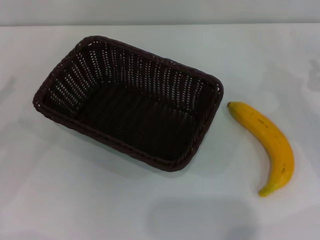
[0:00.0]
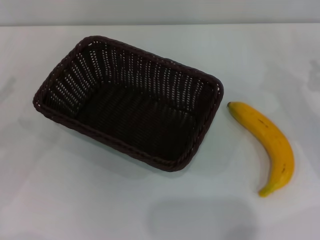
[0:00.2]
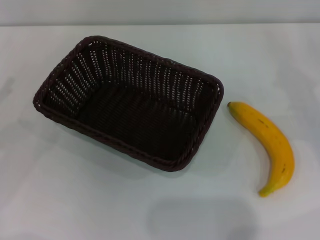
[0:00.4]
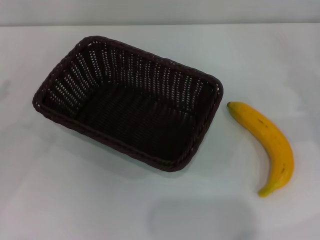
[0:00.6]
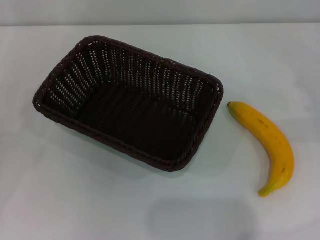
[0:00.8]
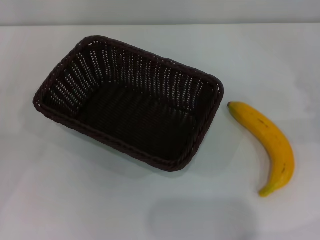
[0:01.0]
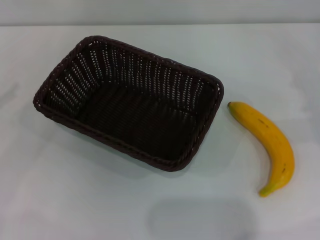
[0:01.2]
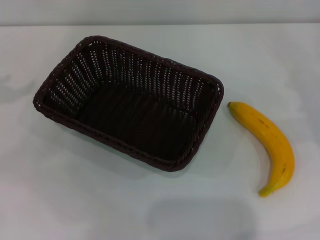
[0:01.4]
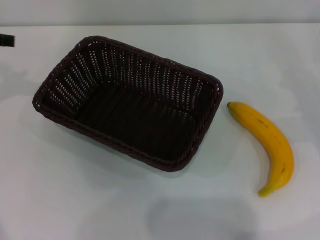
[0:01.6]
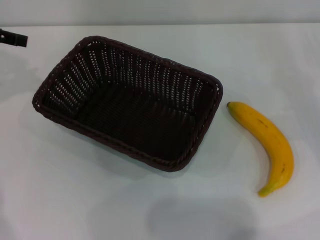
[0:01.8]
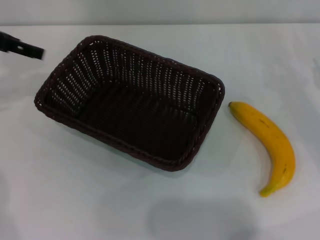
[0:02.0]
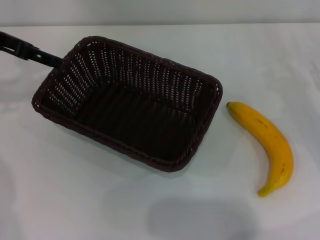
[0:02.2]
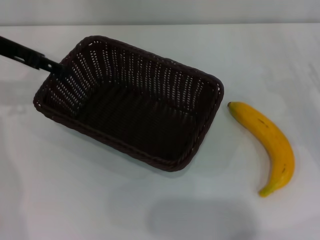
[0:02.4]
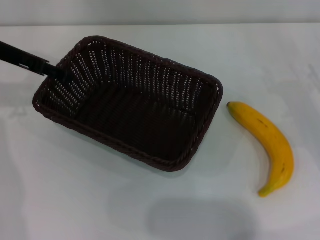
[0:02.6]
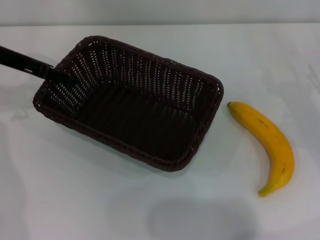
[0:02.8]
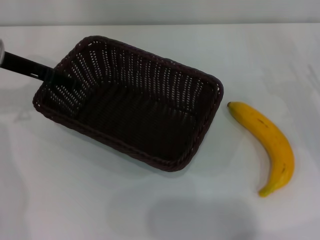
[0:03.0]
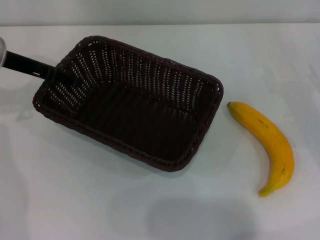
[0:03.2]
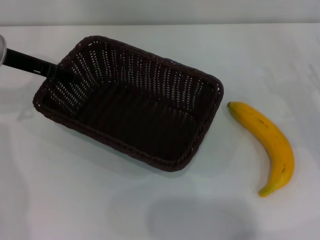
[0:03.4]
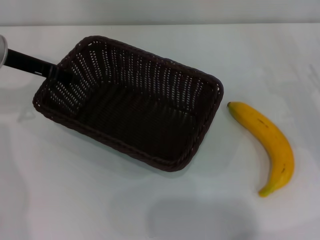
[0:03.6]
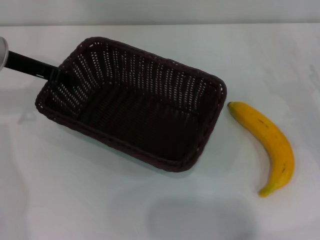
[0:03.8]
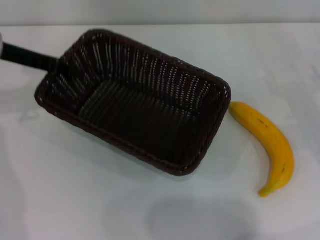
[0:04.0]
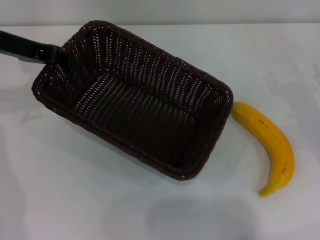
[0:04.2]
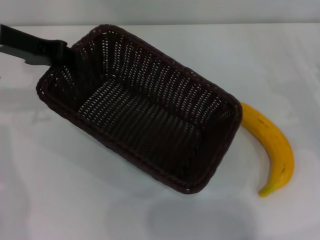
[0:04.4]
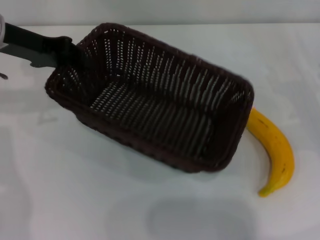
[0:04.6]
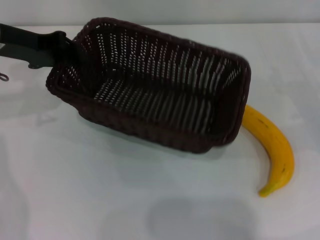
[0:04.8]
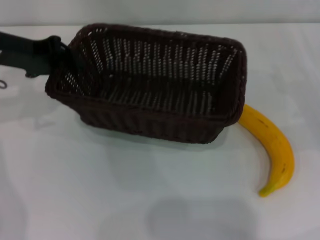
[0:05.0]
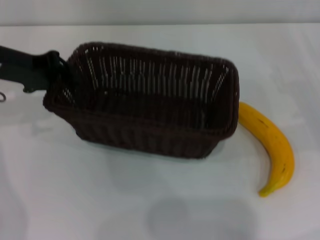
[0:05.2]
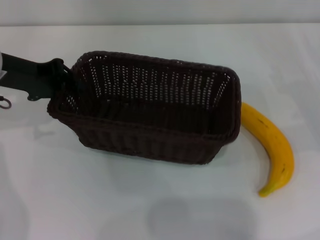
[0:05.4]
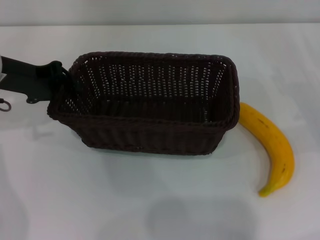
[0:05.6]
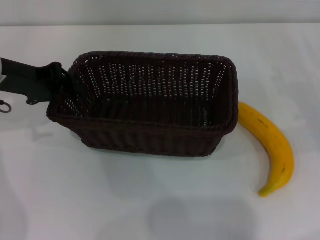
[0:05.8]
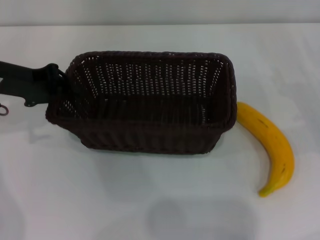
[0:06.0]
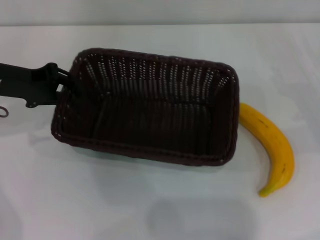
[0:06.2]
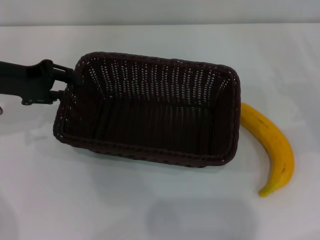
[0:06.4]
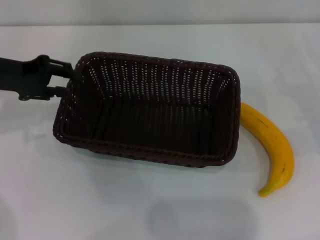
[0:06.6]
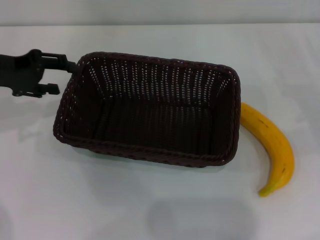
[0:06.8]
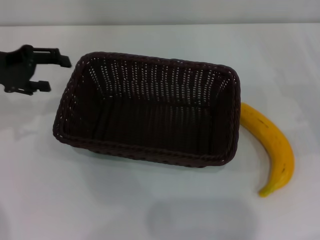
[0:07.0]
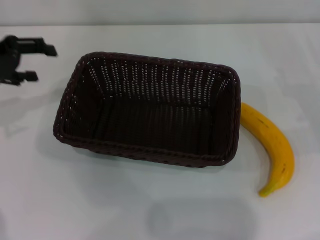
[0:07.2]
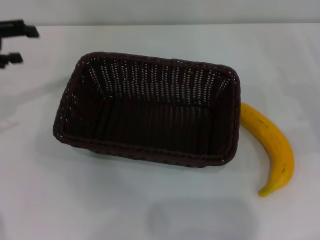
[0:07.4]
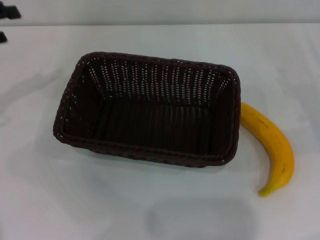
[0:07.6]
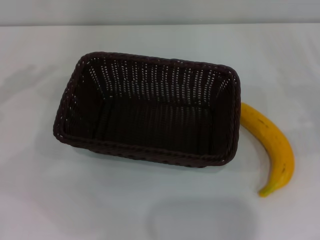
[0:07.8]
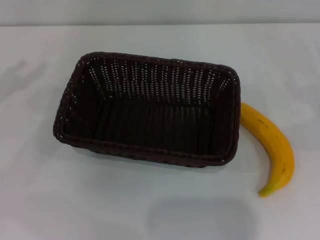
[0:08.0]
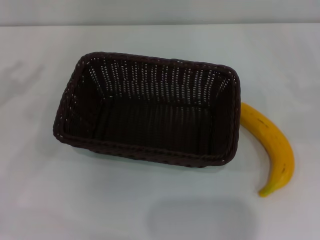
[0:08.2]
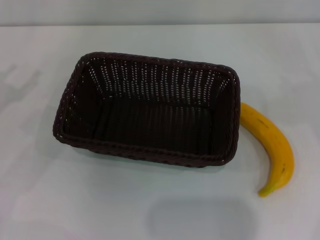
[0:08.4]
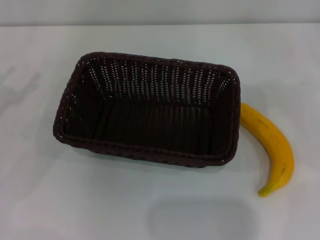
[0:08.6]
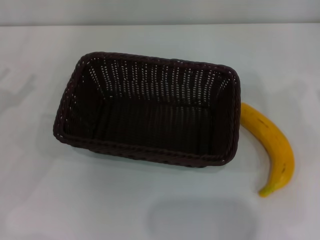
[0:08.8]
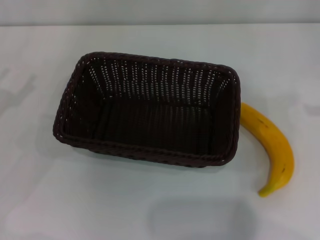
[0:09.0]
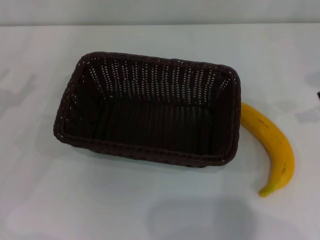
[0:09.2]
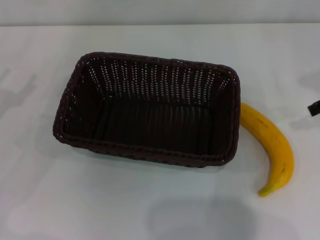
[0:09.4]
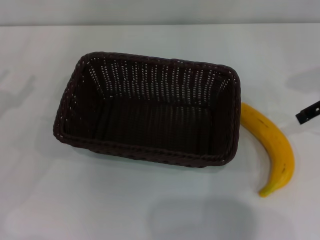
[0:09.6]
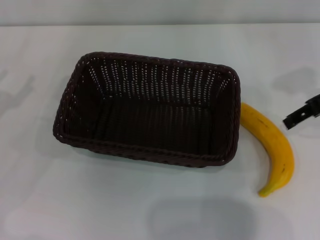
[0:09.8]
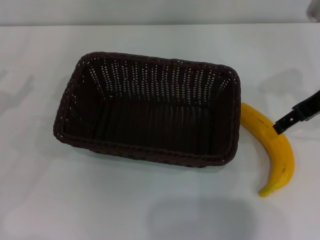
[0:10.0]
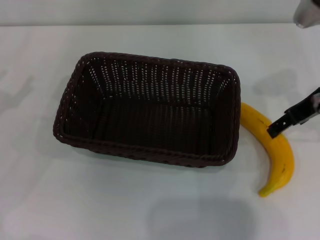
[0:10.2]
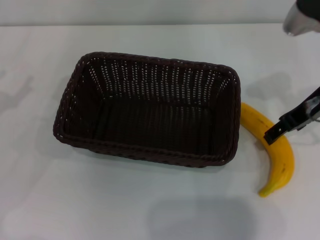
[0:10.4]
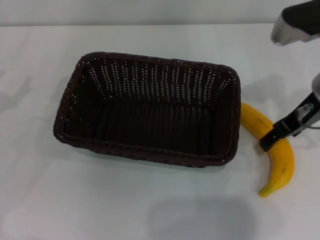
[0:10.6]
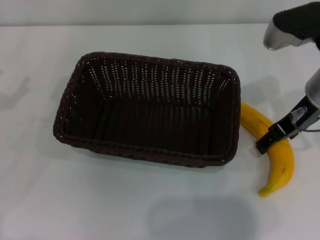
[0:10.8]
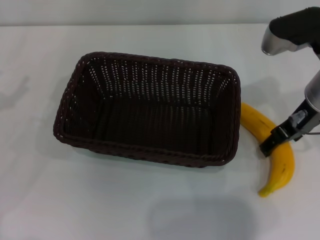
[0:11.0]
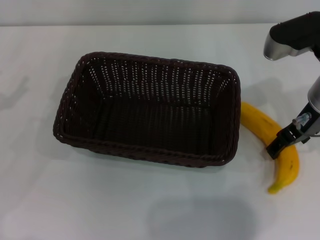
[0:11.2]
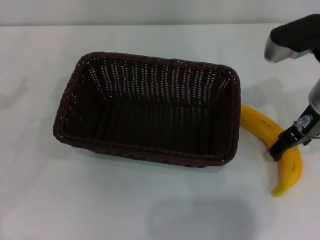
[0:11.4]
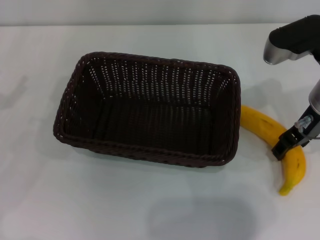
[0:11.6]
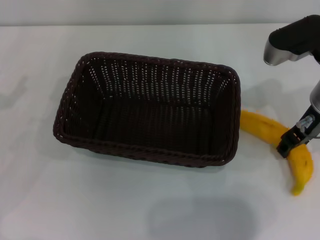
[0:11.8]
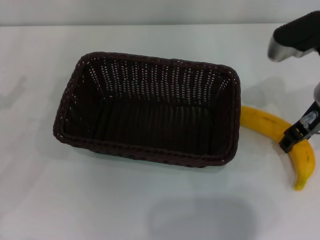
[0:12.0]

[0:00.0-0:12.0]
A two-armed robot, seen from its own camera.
Step, 0:00.0 to 0:04.4: Pick up the dark basket with the left gripper.
Step, 0:04.6 to 0:07.2: Place the dark basket in the center of view with the left gripper.
0:01.6 to 0:03.0: The left gripper moves to the right and downward, about 10 cm.
0:03.0 to 0:04.4: The left gripper changes place by about 5 cm, and closes up.
0:04.4 to 0:06.0: The left gripper moves some 5 cm.
0:06.0 to 0:07.6: The left gripper heads to the left, covering roughly 10 cm, and opens its fingers.
0:09.0 to 0:10.4: The right gripper shifts about 15 cm to the left.
0:10.4 to 0:12.0: The grippers move only a little.

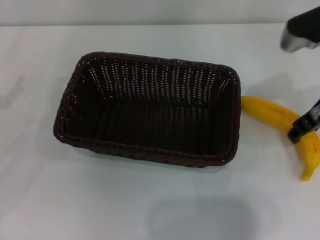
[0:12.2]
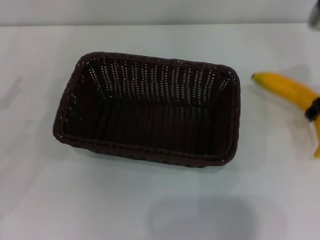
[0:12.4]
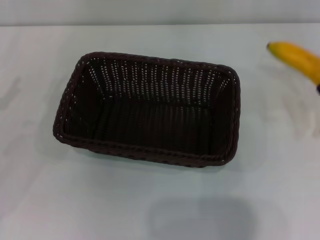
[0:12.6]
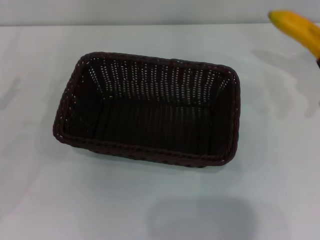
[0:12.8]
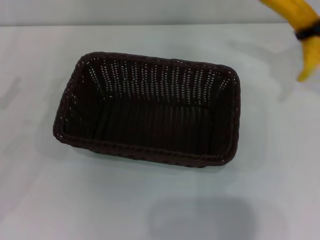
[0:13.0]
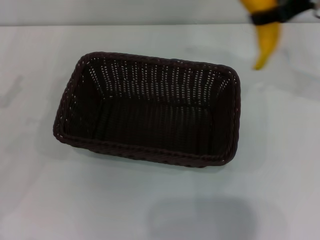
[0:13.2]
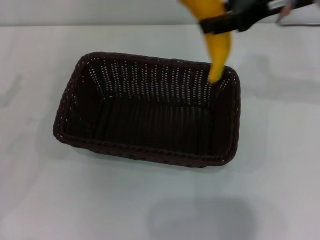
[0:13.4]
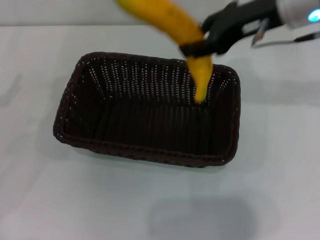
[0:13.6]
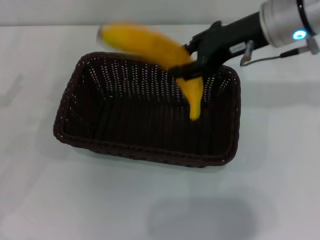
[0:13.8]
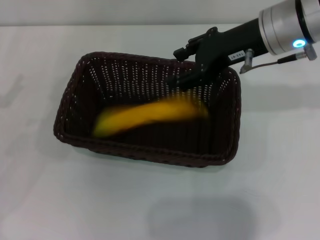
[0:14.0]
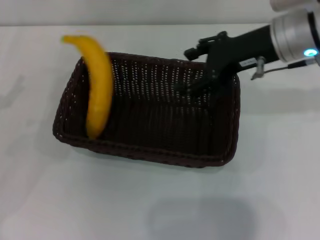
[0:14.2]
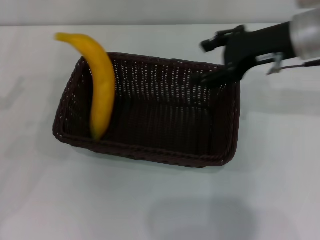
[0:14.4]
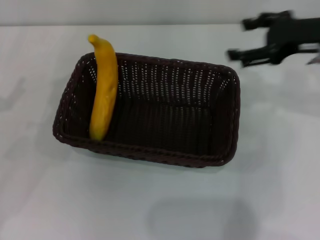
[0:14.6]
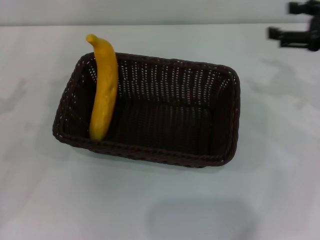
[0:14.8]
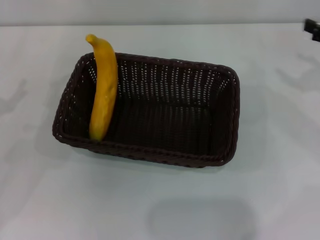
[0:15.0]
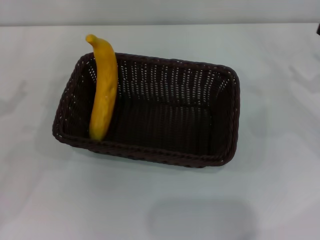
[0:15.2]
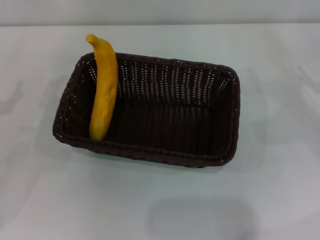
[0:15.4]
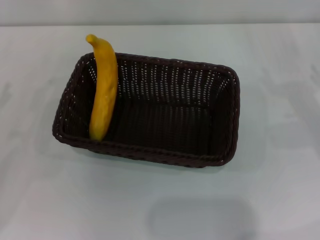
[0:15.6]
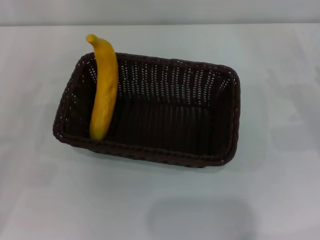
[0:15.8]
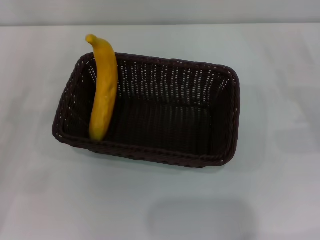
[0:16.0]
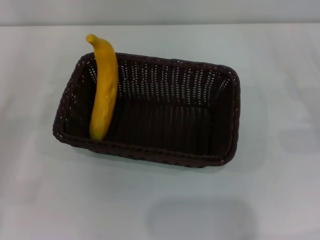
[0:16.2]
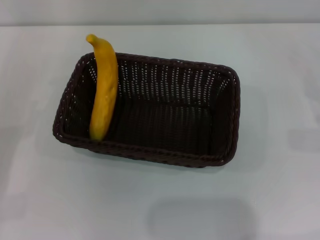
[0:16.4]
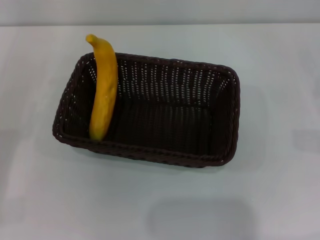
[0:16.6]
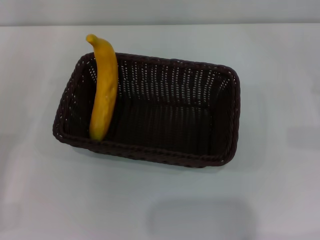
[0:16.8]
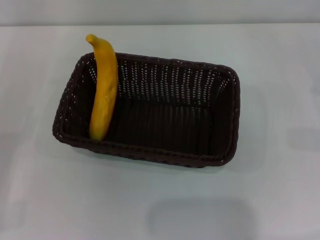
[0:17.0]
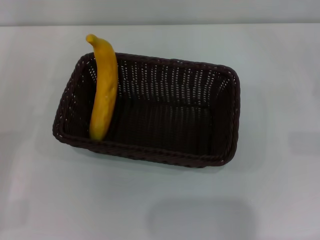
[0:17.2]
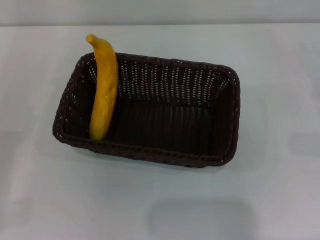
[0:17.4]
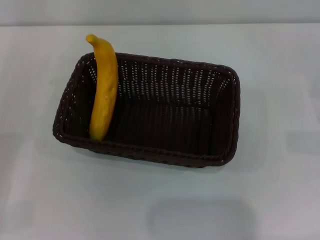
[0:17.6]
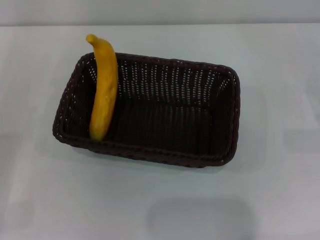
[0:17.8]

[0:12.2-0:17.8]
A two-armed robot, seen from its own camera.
Step, 0:12.8 to 0:14.6: Place the banana into the dark basket with the right gripper.
0:12.2 to 0:13.6: The right gripper moves upward and to the left, some 10 cm.
0:13.6 to 0:15.0: The right gripper travels to the right and downward by about 20 cm, and opens its fingers.
